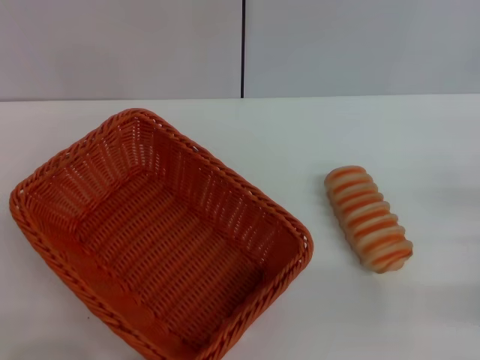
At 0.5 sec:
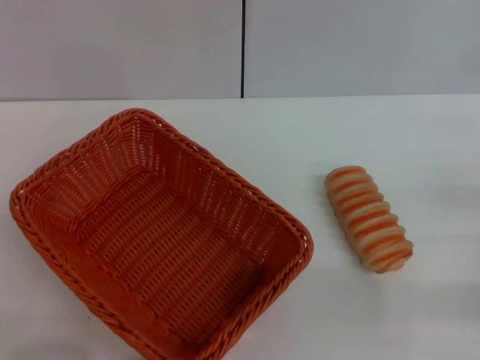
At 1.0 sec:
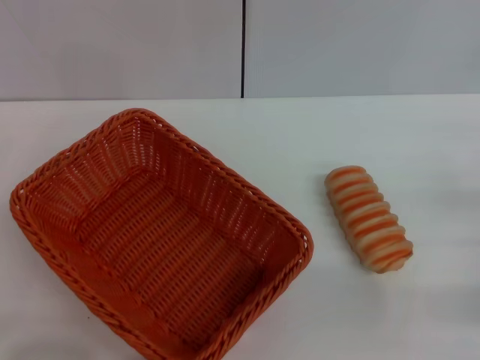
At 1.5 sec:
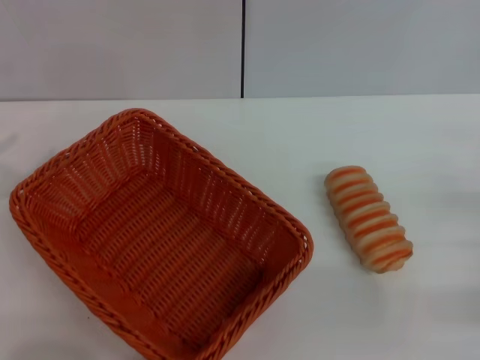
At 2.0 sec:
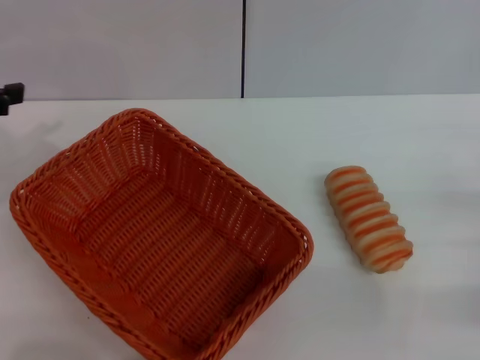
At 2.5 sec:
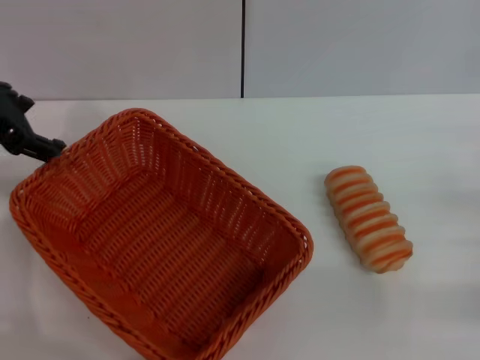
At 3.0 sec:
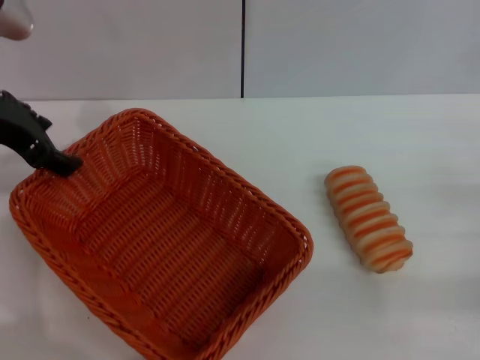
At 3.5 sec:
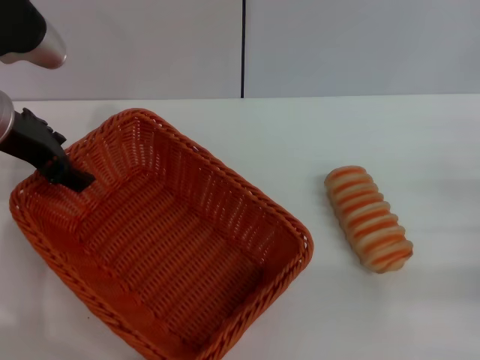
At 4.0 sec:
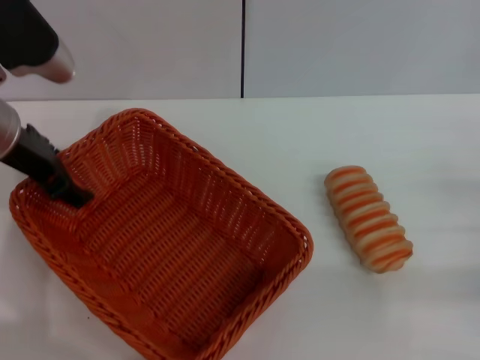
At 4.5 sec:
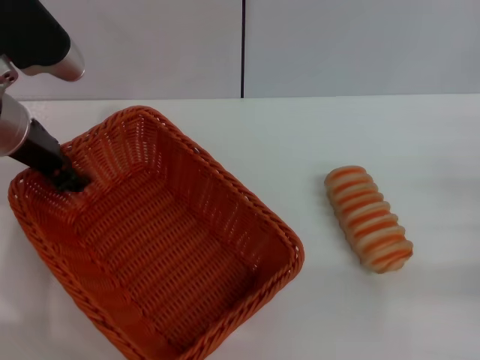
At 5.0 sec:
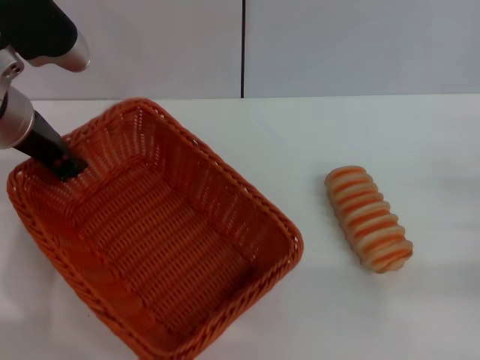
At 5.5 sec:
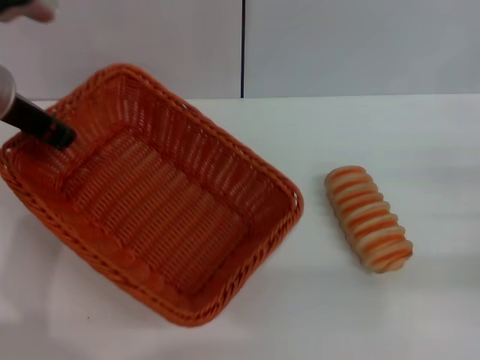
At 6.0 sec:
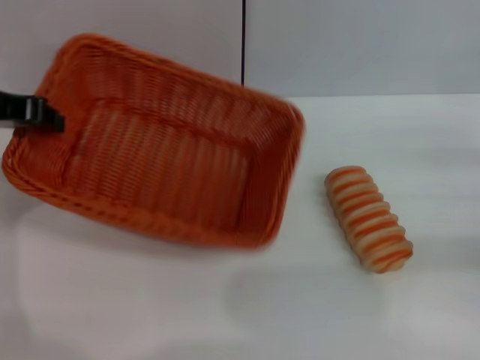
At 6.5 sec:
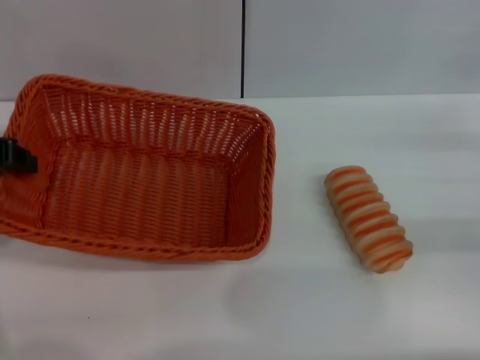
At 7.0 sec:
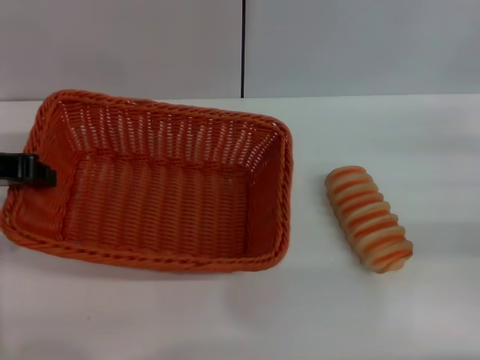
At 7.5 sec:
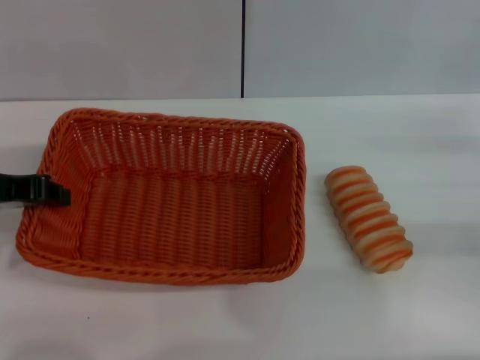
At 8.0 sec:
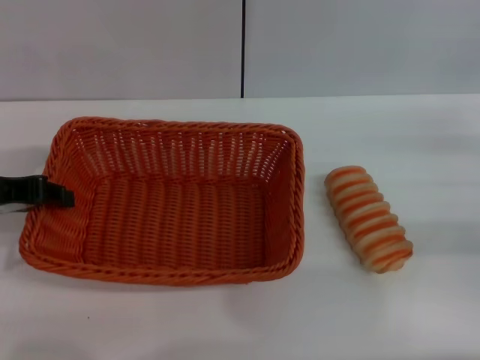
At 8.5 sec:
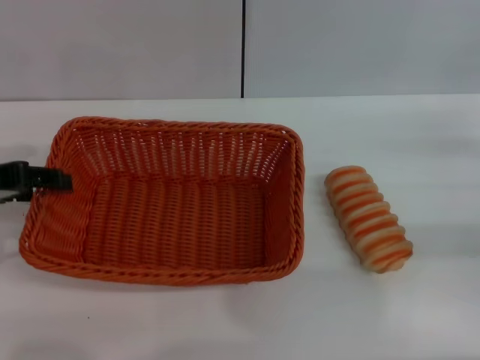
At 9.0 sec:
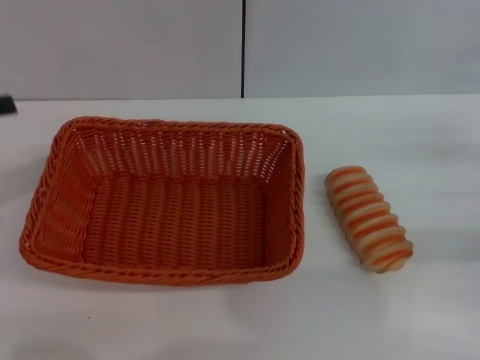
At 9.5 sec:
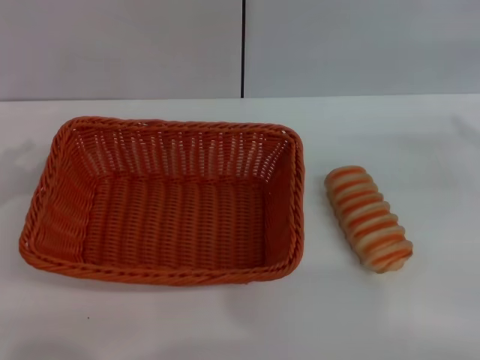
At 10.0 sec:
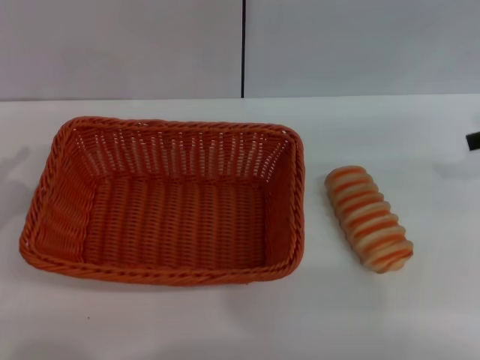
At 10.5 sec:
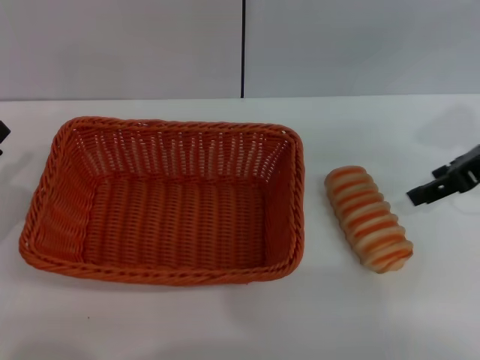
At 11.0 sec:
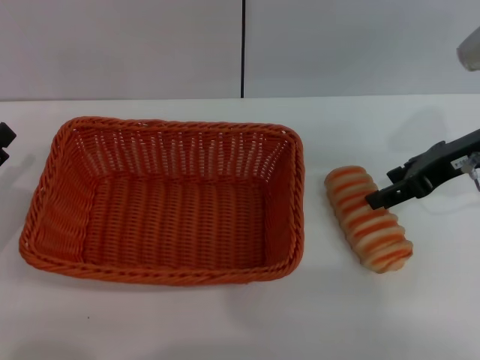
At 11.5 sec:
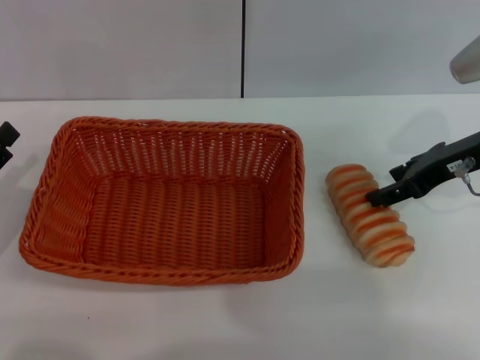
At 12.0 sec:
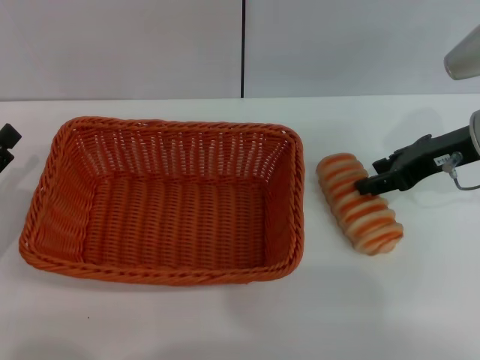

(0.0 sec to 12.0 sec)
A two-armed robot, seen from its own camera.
Step, 0.0 sec - 5.0 sec: Pick up the light basket with the left gripper.
Step, 5.5 sec - 8.5 sec: Place the light basket in the center of view with the left gripper.
2.0 sec - 4.0 sec: The left gripper shifts roughly 15 cm to the right and forward.
4.0 sec - 6.0 sec: The right gripper moves some 5 cm, while the left gripper changes place by approximately 5 cm, and closes its fingers.
6.0 sec - 8.0 sec: The left gripper travels downward and backward by roughly 10 cm.
8.0 sec - 10.0 sec: The left gripper moves downward, to the left and backward, about 15 cm, and opens.
10.0 sec - 12.0 sec: The right gripper is displaced to the left and downward by roughly 10 cm.

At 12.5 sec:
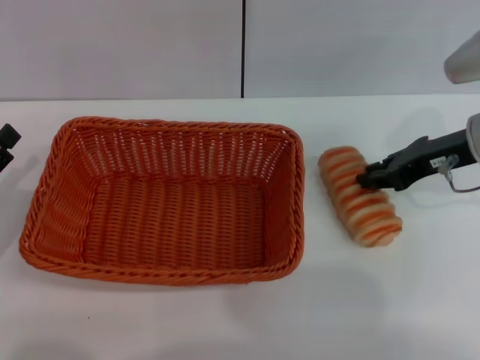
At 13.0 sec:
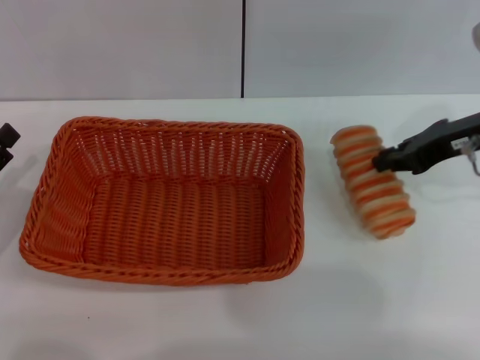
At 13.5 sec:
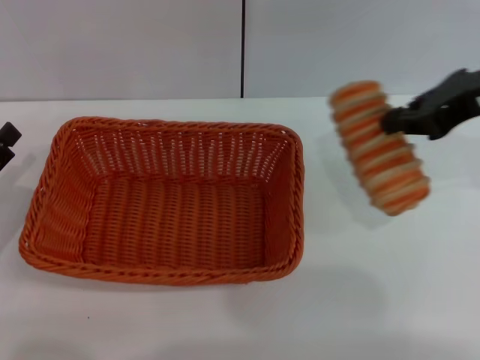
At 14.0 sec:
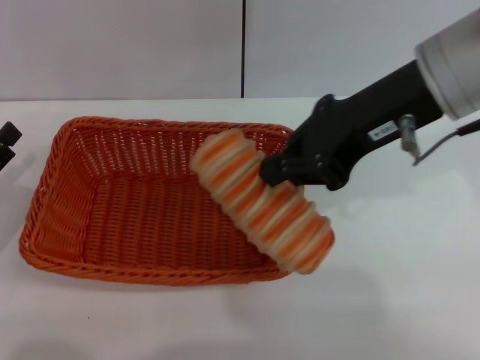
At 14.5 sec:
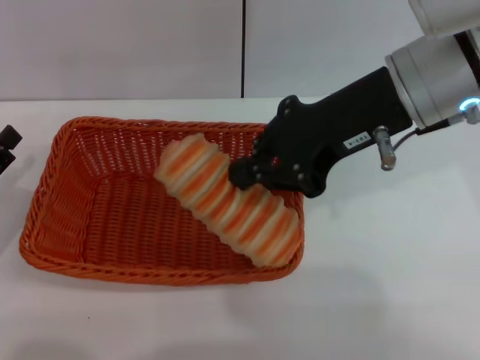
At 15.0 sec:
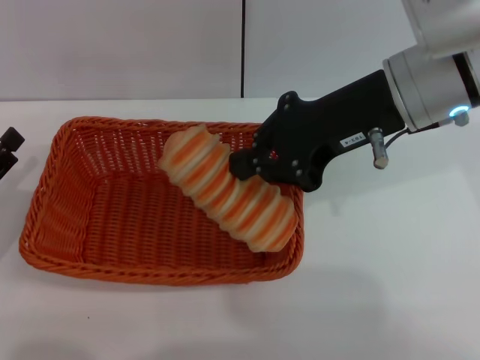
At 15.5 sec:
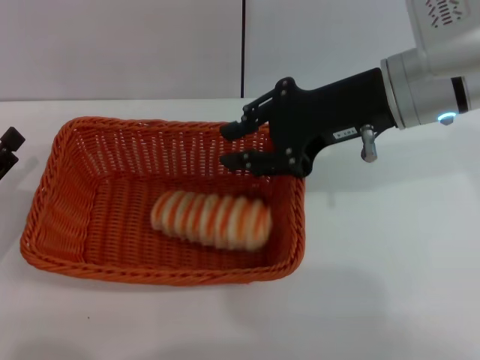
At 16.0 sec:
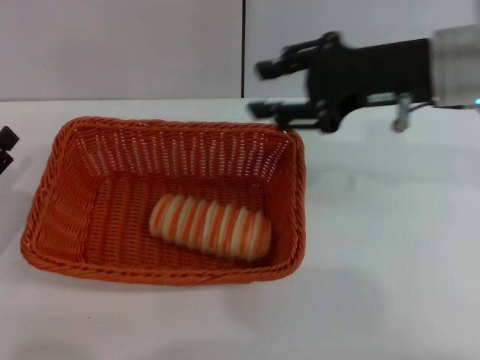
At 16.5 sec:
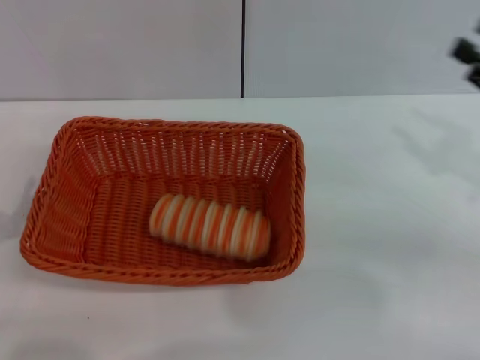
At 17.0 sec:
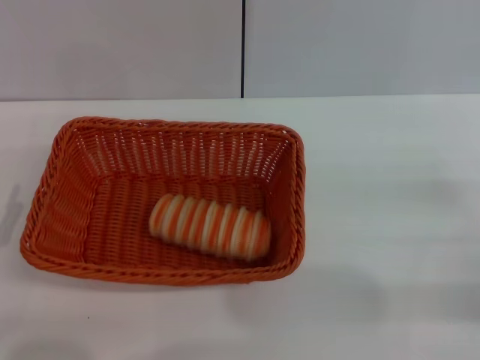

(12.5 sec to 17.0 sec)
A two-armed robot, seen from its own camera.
Step, 13.5 sec - 15.5 sec: Place the long bread into the light basket with the right gripper.
12.5 sec - 14.5 sec: The right gripper shifts some 15 cm upward and to the left, and closes up.
14.5 sec - 17.0 sec: The left gripper shifts some 5 cm backward, while the right gripper heads to the right, downward and backward, covering some 30 cm, and opens its fingers.
